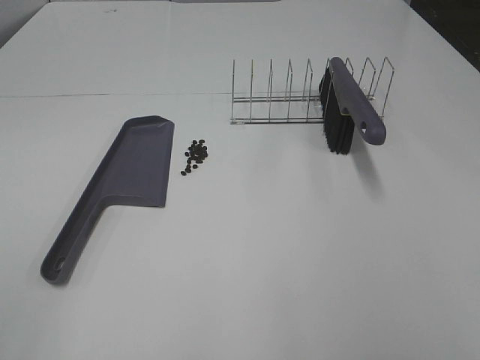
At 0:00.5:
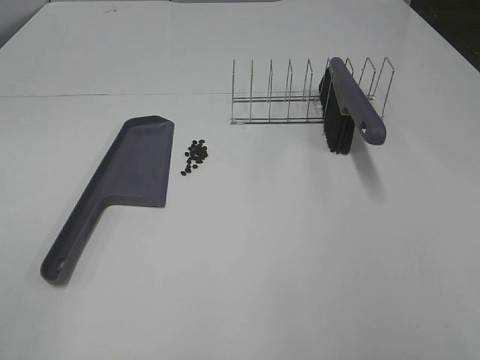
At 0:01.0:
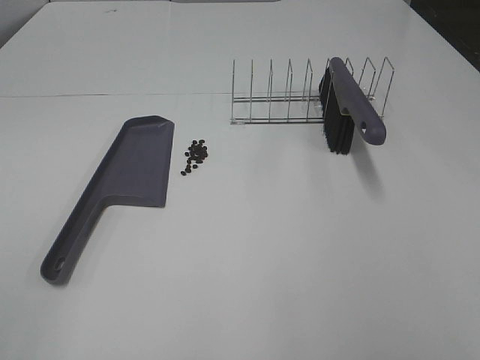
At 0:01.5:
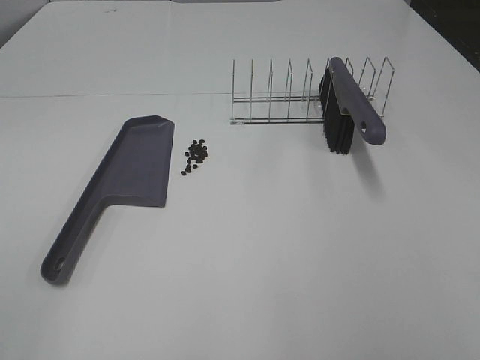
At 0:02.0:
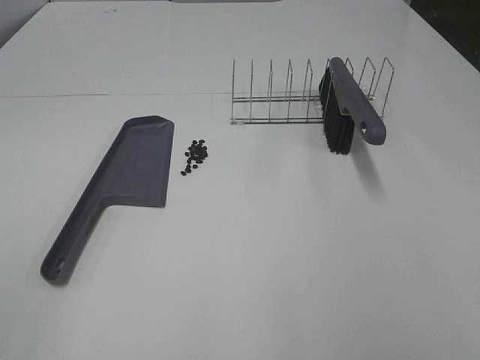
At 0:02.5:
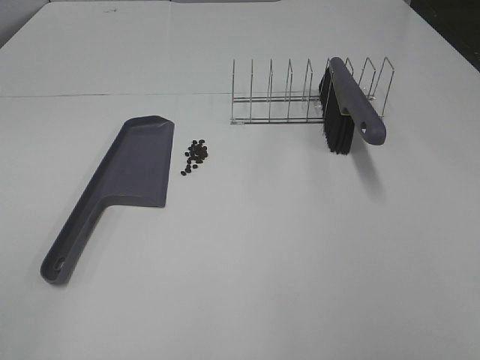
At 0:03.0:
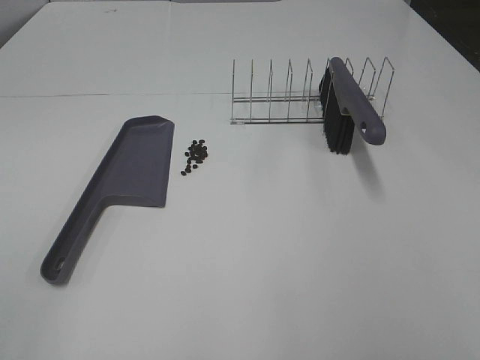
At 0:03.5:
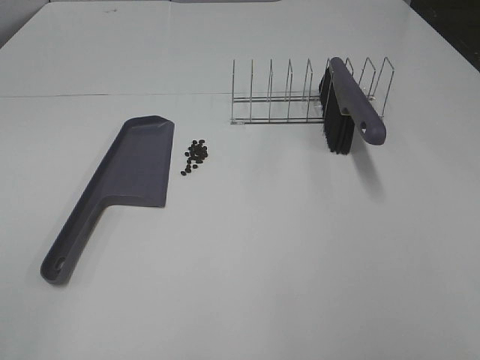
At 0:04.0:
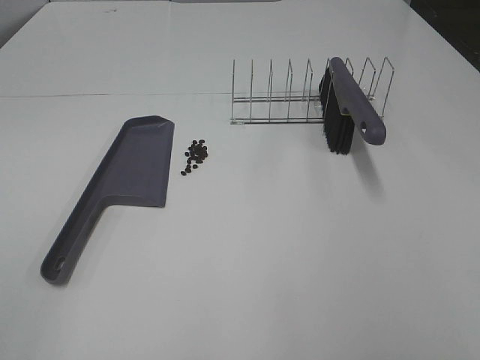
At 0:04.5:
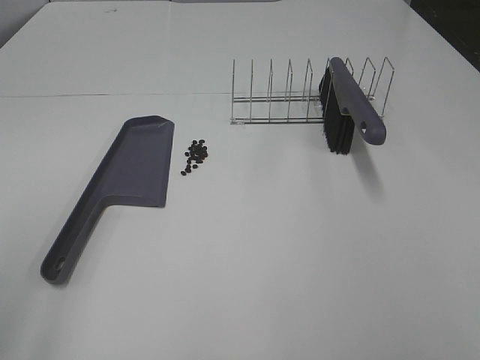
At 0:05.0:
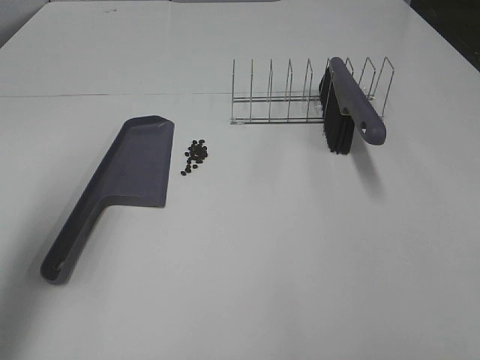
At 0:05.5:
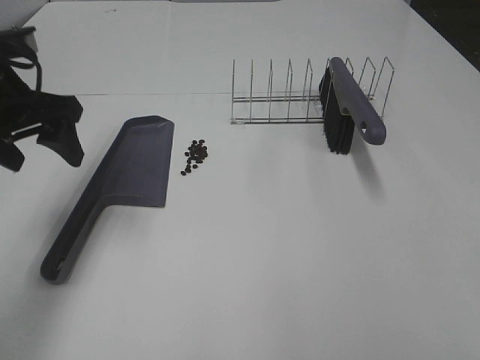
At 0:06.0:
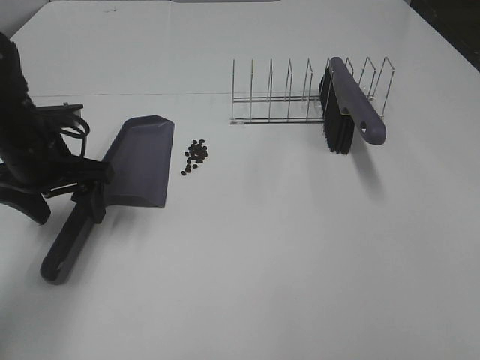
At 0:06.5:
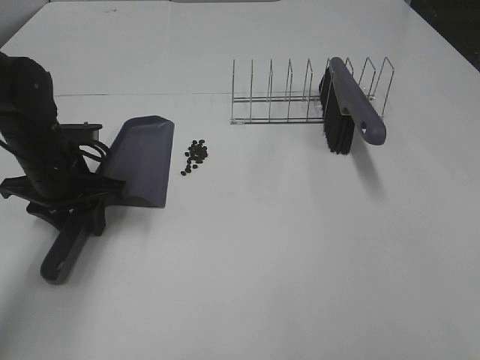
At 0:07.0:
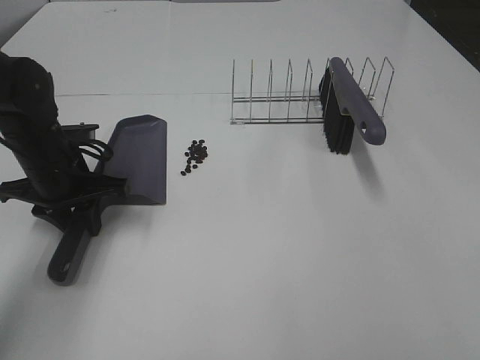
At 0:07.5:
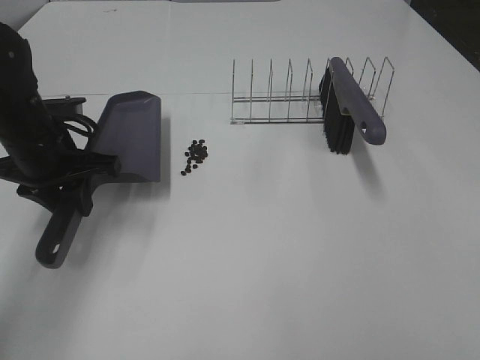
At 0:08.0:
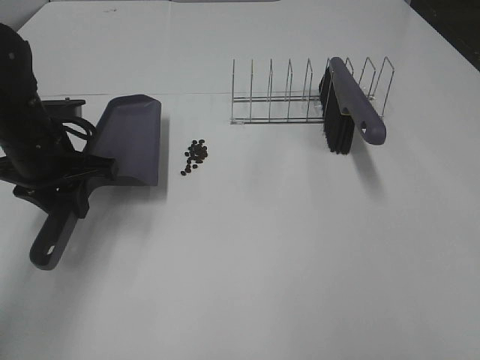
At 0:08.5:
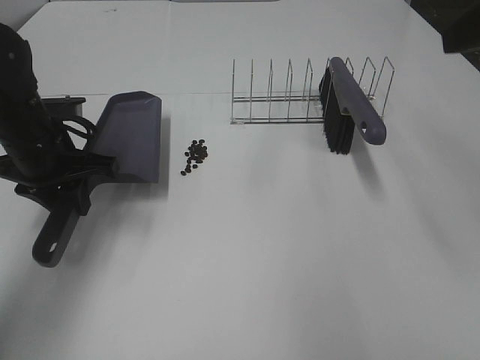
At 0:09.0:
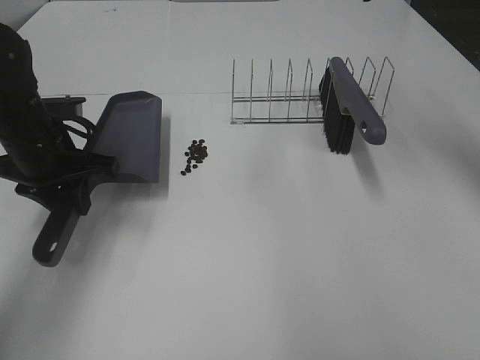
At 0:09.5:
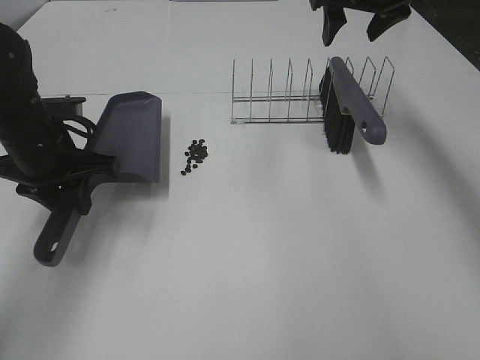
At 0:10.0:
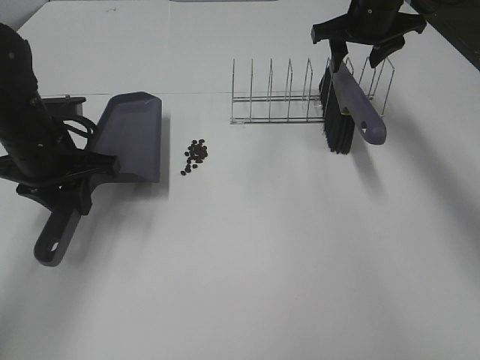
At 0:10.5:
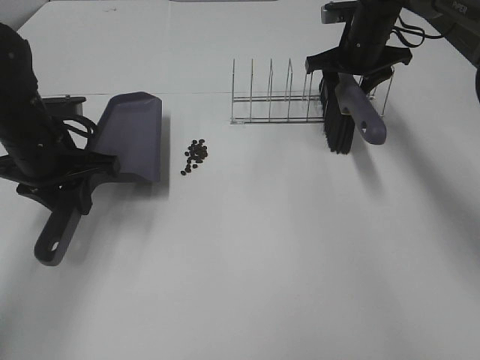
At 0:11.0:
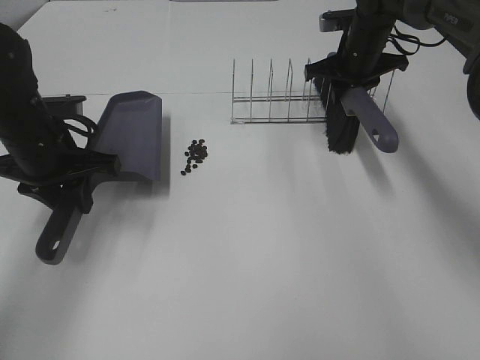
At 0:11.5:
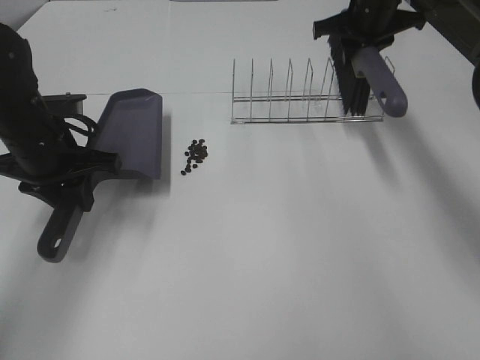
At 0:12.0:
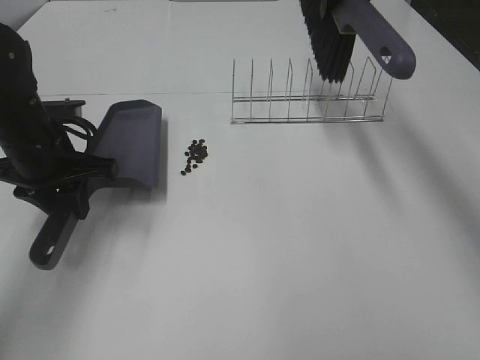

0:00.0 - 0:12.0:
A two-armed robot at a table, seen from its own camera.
Task of the whole recording: Sweep Coffee Bean.
Step, 0:00.0 - 0:06.5: Left hand: grab the dustpan.
Step, 0:08.0 - 0:10.5: Right hand:grab the broom.
0:00.0 - 0:04.0: Both grippers stay about where they are.
0:04.0 - 0:06.0: The left gripper shifts about 40 cm forward and downward.
0:06.0 - 0:08.0: The left gripper closes its fingers.
0:08.0 - 0:10.0: The right gripper goes about 50 cm forward, and closes its fingers.
0:10.0 - 0:12.0: The right gripper heads upward, covering some 10 cm, and closes its fingers.

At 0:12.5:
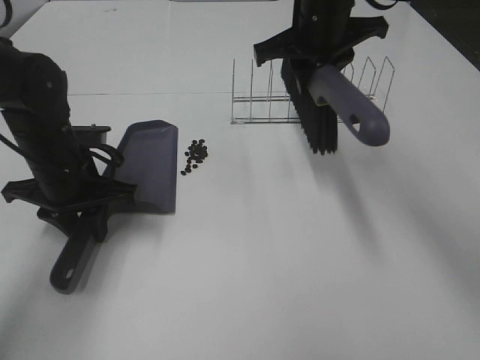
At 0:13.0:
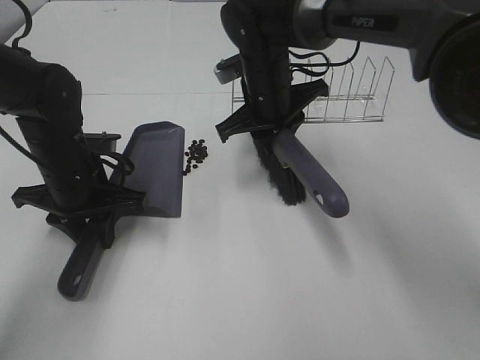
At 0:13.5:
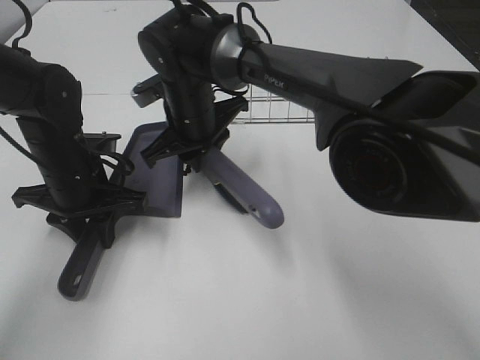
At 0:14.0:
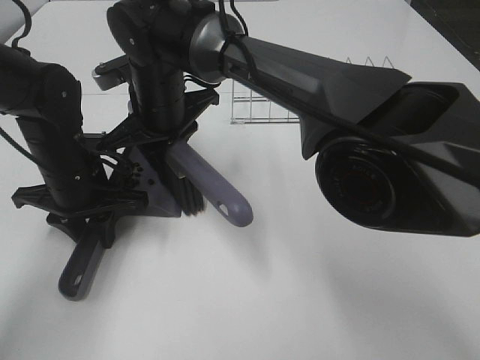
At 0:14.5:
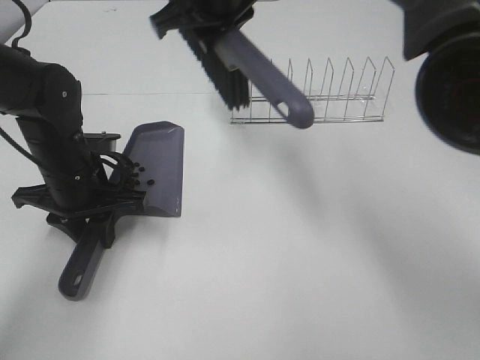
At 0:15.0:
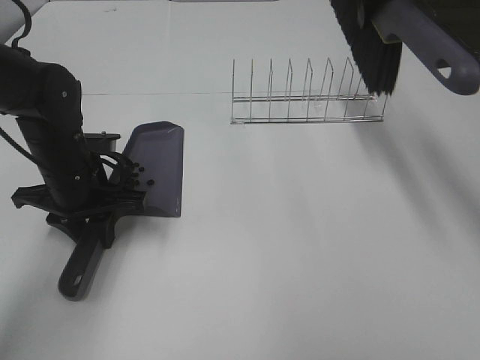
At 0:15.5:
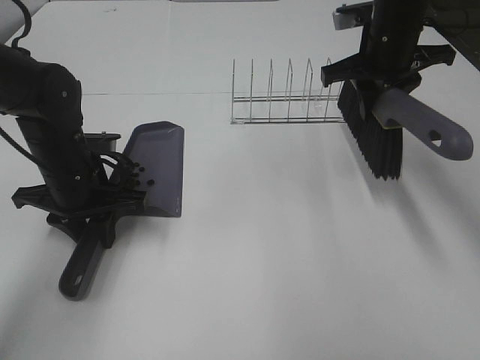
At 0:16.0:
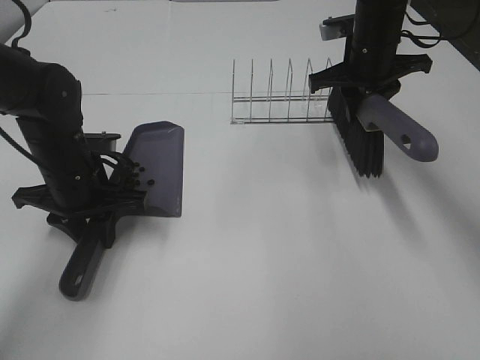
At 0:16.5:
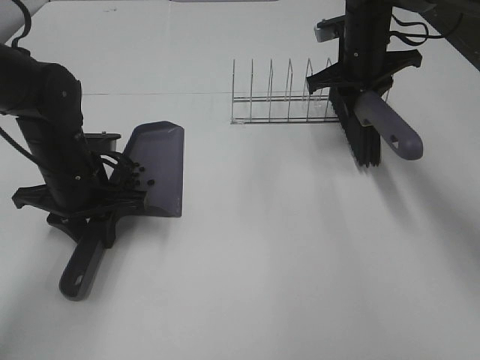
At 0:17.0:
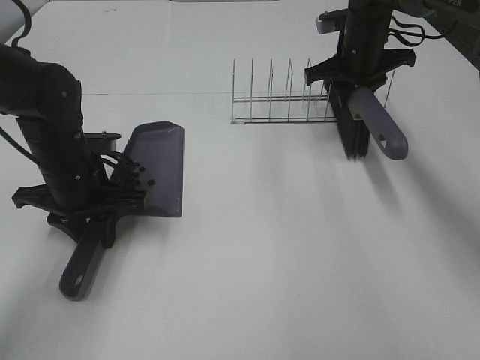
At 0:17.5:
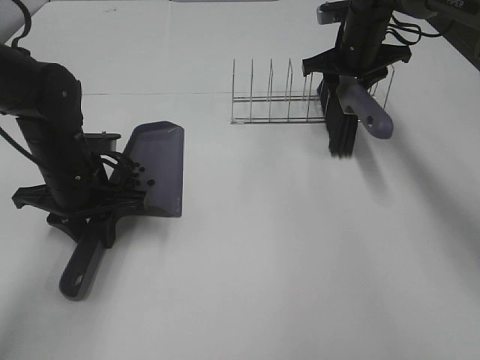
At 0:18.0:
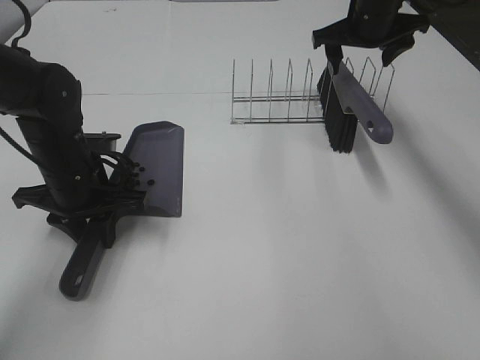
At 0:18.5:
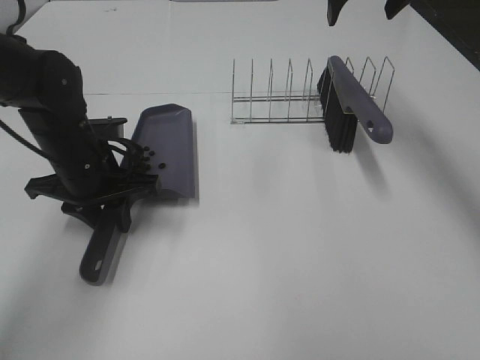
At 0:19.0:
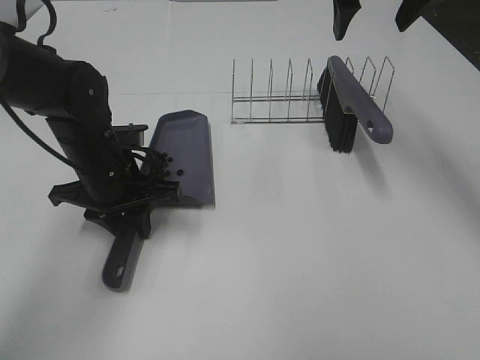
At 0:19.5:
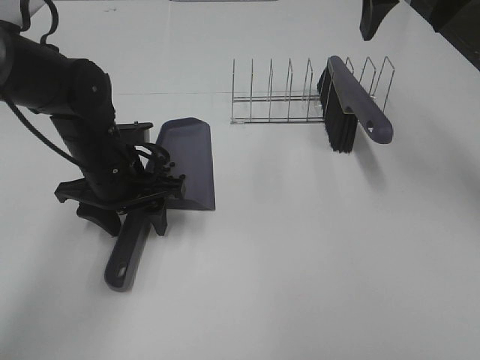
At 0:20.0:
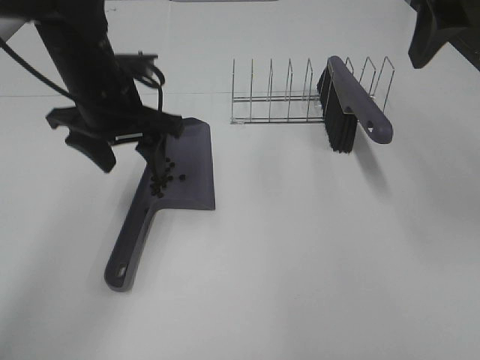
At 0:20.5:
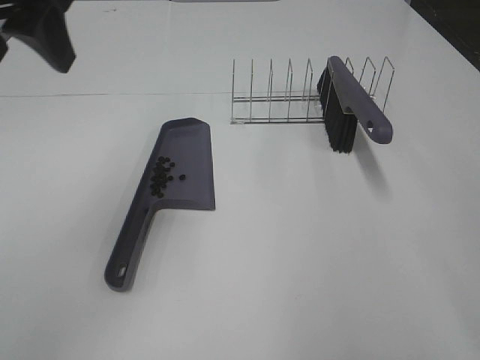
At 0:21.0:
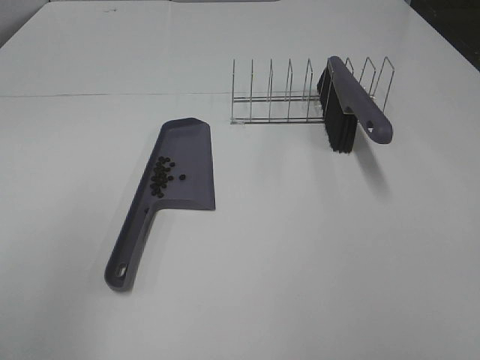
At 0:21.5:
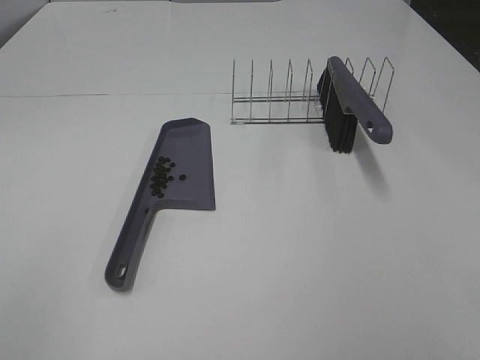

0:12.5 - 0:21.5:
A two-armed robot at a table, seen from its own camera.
Task of the whole recording: Sweep Coffee Bean.
Step, 0:14.5 - 0:17.5: Right hand:place the broom on the rack.
Step, 0:18.0 - 0:19.5: Left hand:place the dustpan on the table.
0:12.5 - 0:14.5: The right gripper shifts approximately 10 cm to the left and upward.
0:14.5 - 0:17.0: The right gripper is displaced to the right, downward and forward by about 25 cm.
0:17.0 - 0:19.5: The right gripper shifts approximately 25 cm upward and backward, and opens its fingers; the left gripper opens up.
0:19.5 - 0:21.5: The right gripper heads backward, covering roughly 35 cm, while the left gripper goes approximately 40 cm backward, upward and to the left.

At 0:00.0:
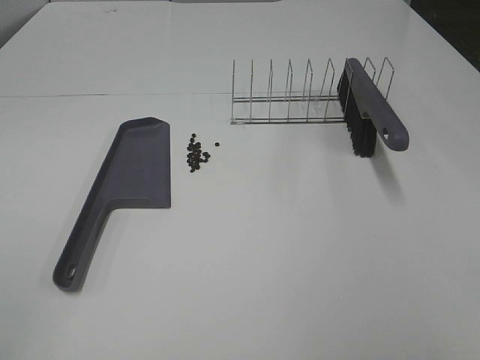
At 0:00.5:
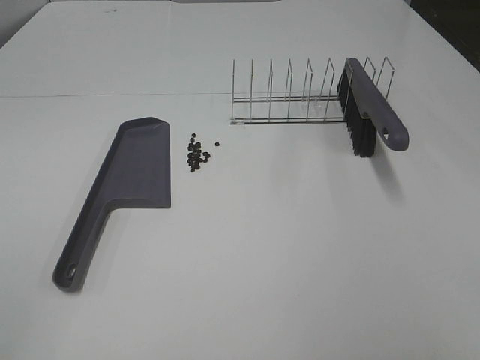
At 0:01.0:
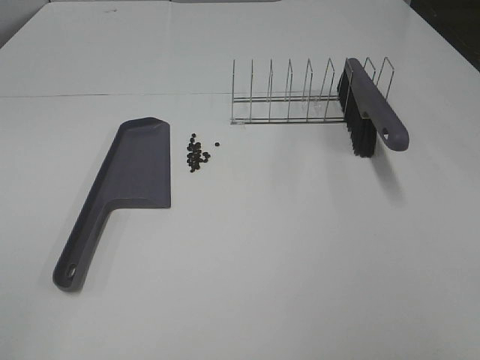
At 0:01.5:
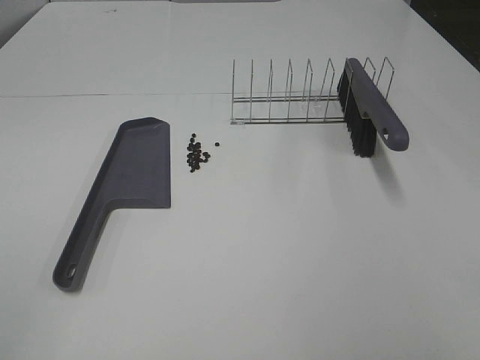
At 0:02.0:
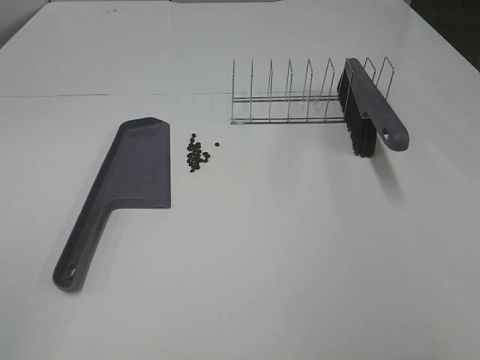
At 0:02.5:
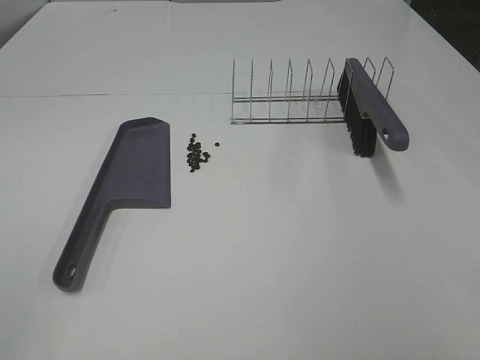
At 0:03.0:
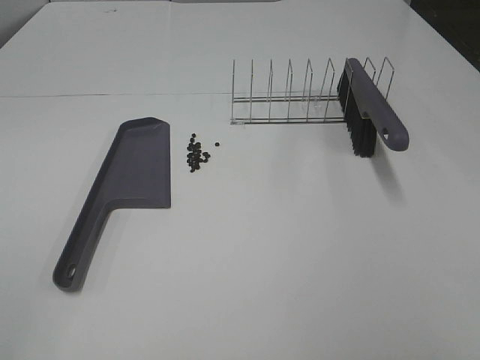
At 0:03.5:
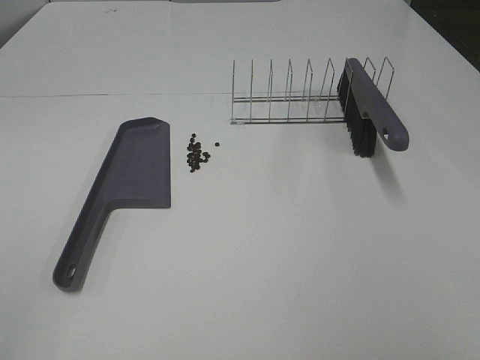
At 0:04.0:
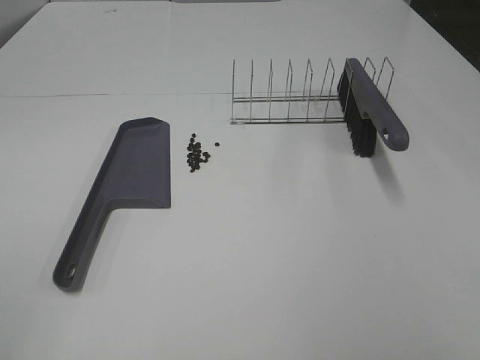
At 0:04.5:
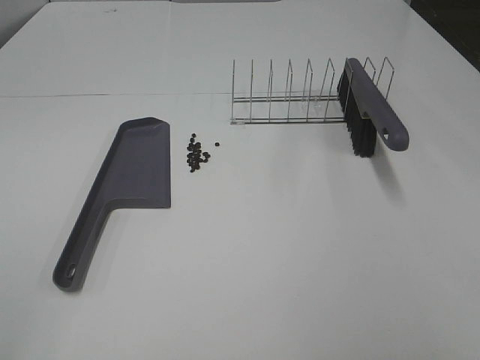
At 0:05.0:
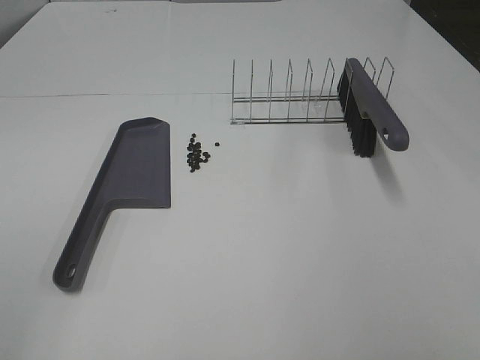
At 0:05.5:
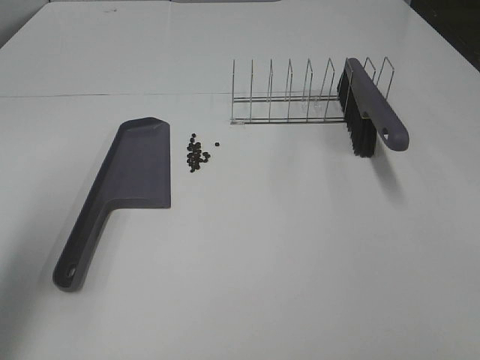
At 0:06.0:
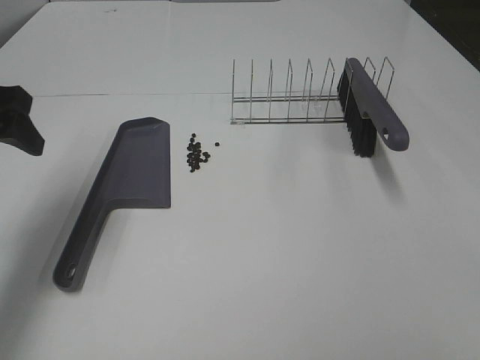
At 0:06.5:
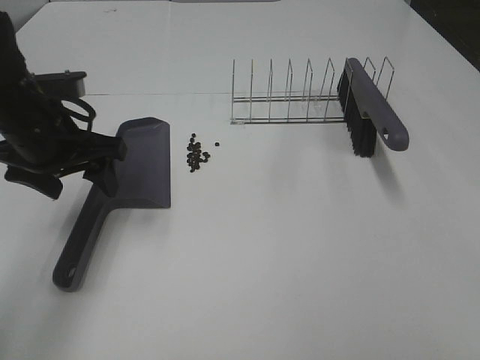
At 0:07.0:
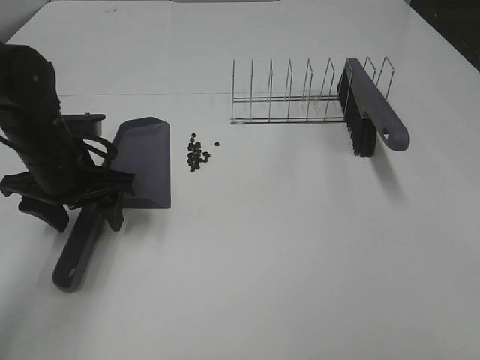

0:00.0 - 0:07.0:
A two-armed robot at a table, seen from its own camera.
Task of the whole recording: Sweep Coffee Bean.
0:00.0 - 0:03.5: Both grippers stay about where they are.
0:05.0 - 0:07.0: The left gripper moves forward and downward, about 35 cm.
